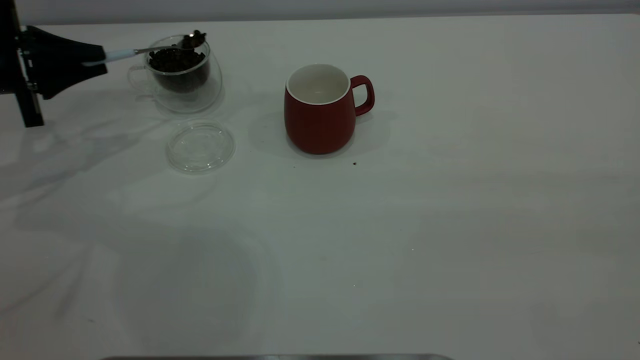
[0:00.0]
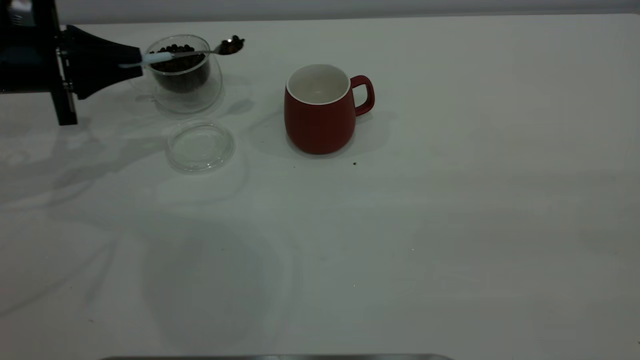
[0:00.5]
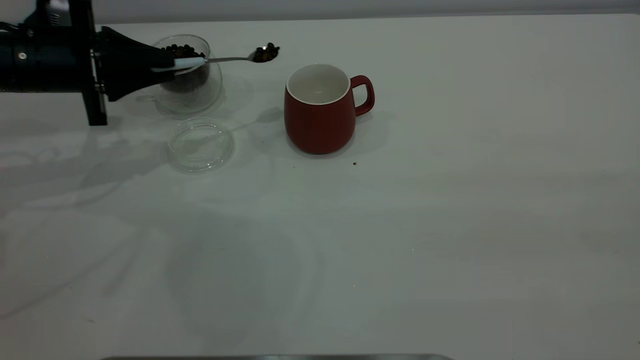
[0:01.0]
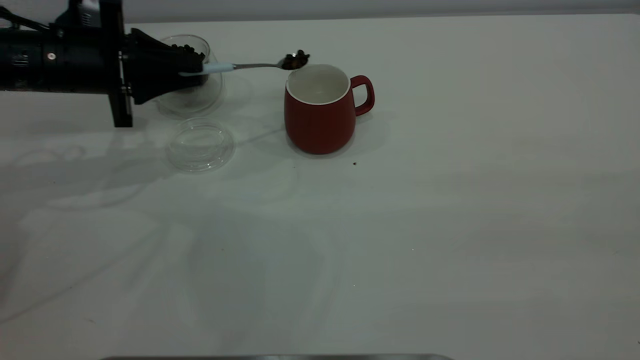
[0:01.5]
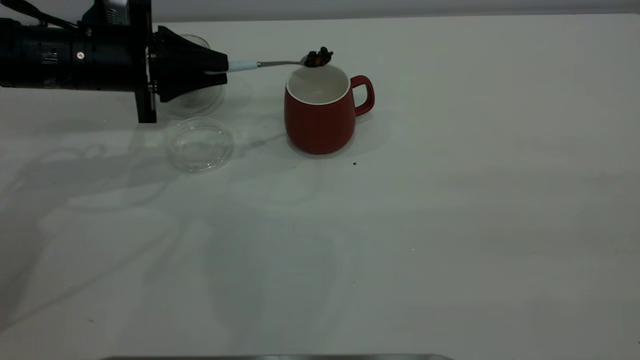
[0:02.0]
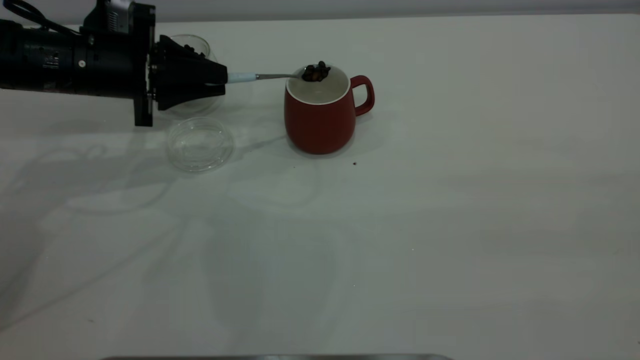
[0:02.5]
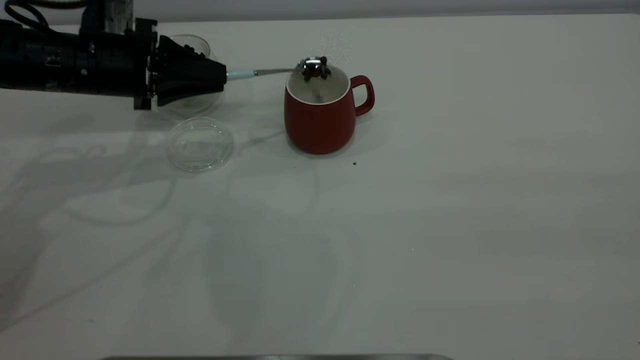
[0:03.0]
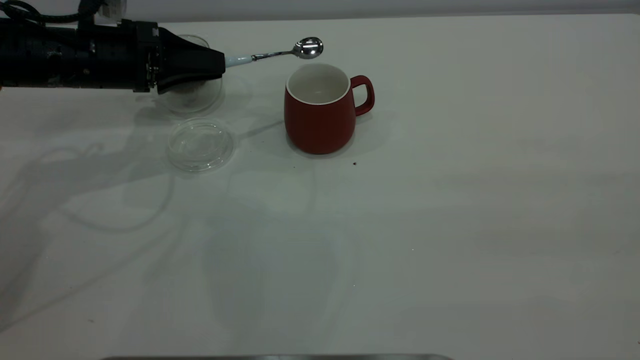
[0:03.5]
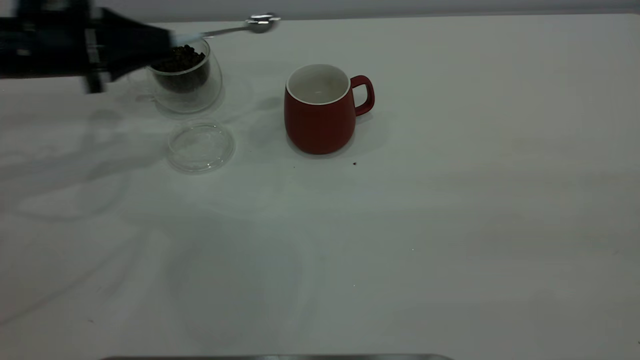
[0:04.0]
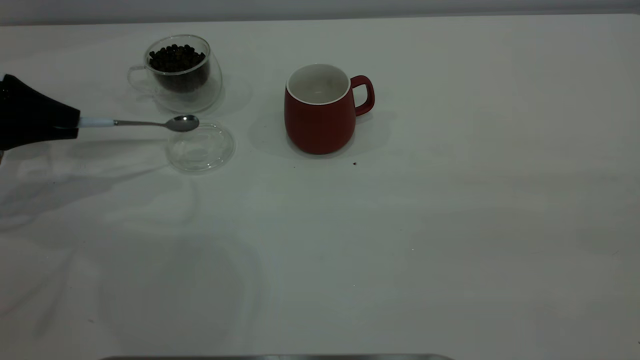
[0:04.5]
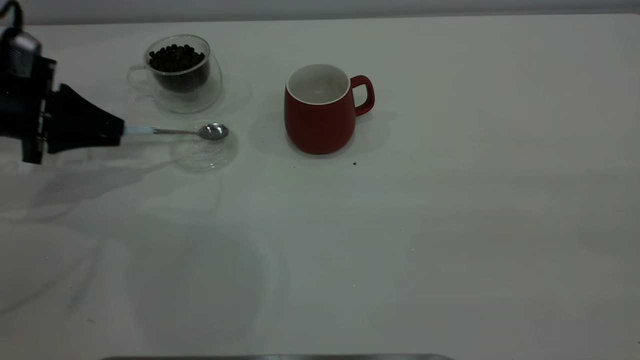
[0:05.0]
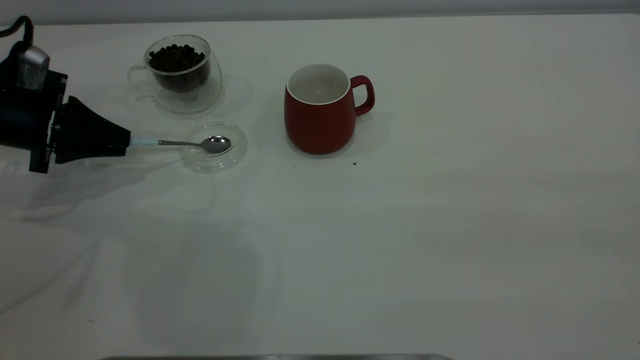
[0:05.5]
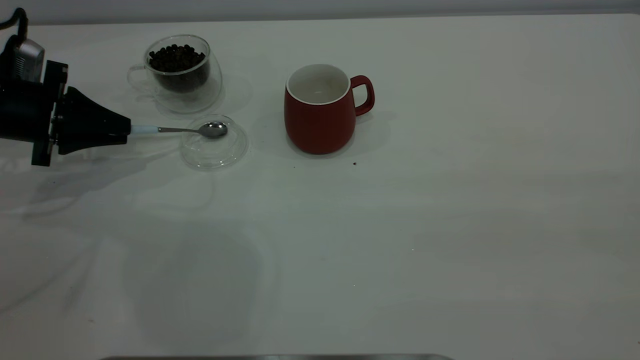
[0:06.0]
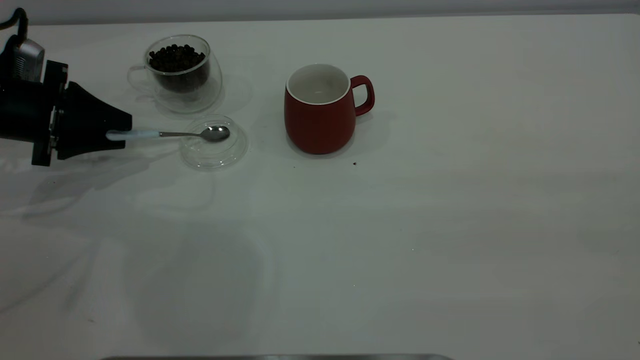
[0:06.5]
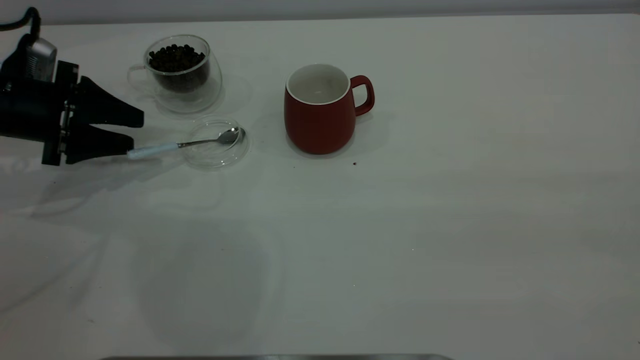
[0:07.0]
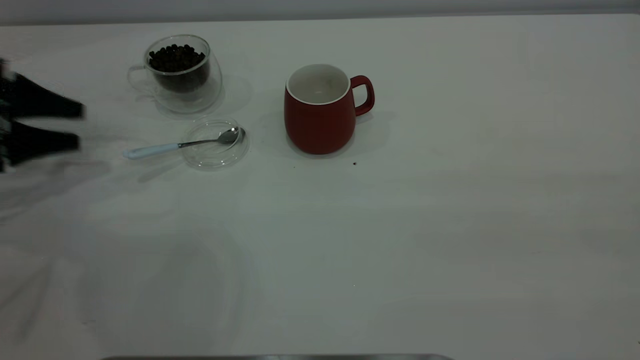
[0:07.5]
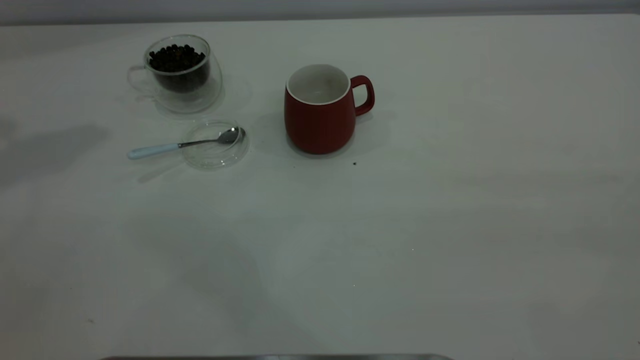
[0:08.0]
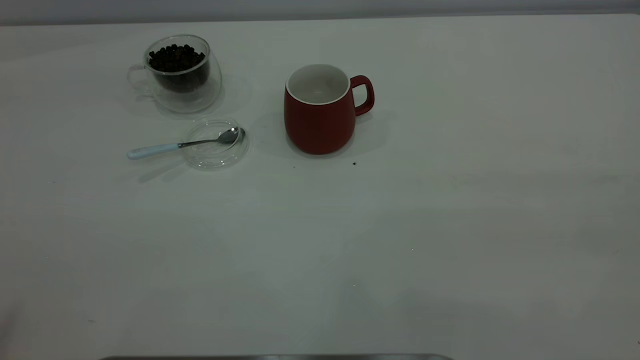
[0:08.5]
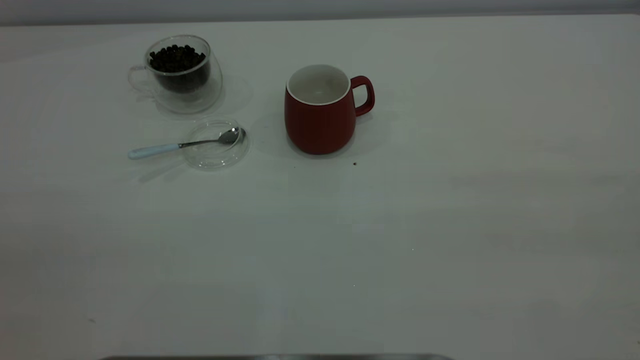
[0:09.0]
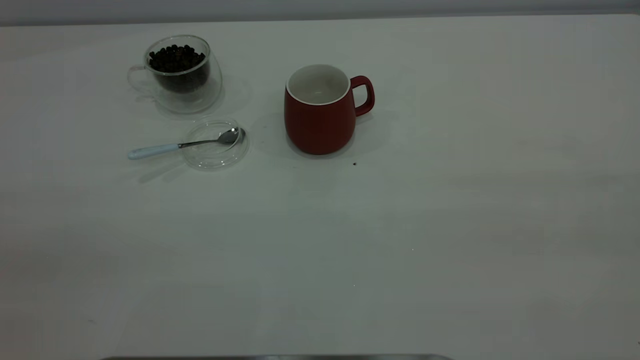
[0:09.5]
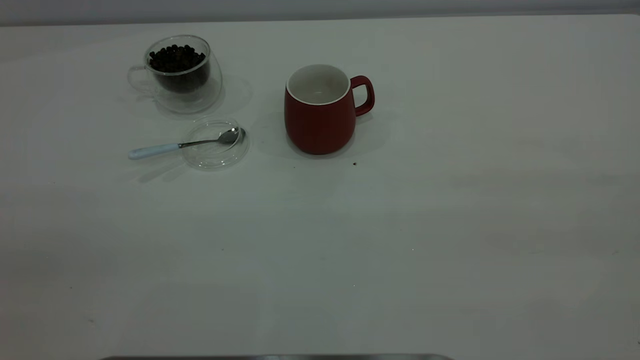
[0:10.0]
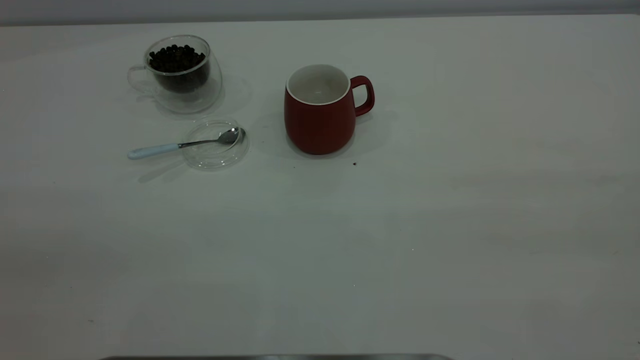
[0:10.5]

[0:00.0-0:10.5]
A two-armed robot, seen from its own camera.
Task of the whole recording: the right gripper place the red cup in the center of the table, the left gripper take the blue spoon from the cup lid and scoop out the coffee beans from the coffee cup and put them into the red cup, the left gripper put the spoon back into the cup lid.
Step, 0:00.0 to 0:03.5: Scoop a spoonful of beans into the cup.
Step, 0:04.0 to 0:07.5: Place the spoon back in its original place.
0:00.0 to 0:02.0: The left gripper is displaced to the right by approximately 10 cm.
0:02.0 to 0:04.0: The left gripper shifts some 10 cm to the left.
0:04.0 to 0:06.5: The left gripper ends up about 5 cm from where it was, and opens.
0:06.5 to 0:08.5: The left gripper is displaced upward and backward by some 50 cm.
